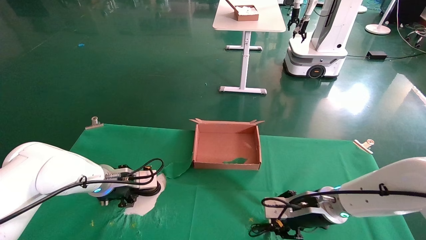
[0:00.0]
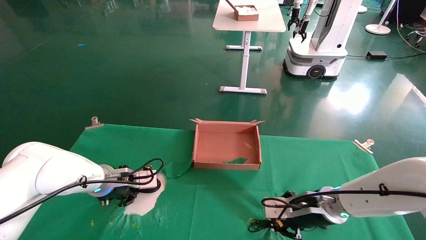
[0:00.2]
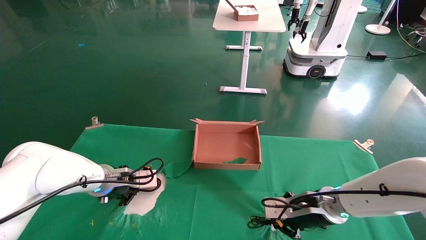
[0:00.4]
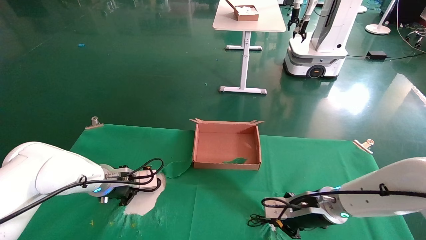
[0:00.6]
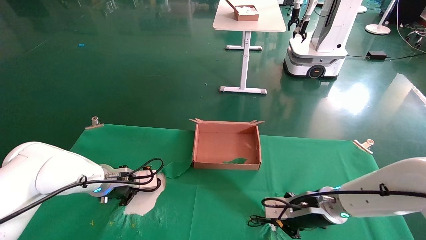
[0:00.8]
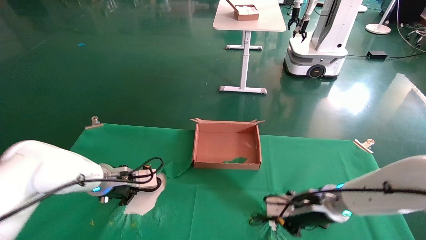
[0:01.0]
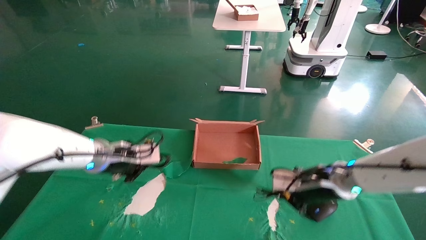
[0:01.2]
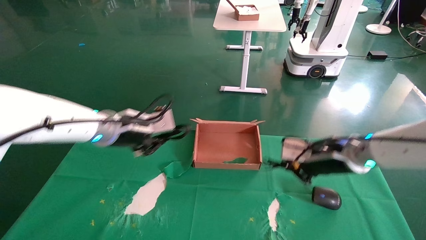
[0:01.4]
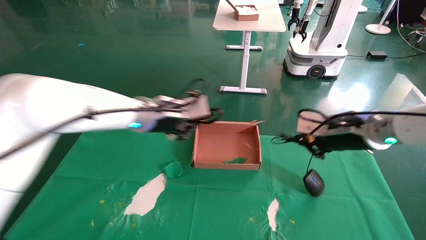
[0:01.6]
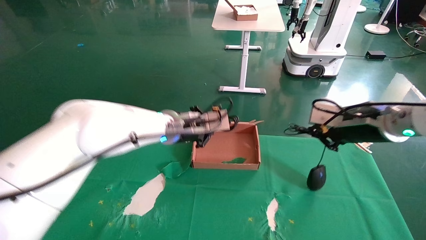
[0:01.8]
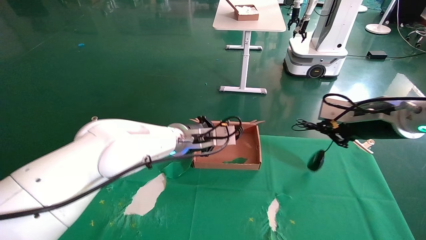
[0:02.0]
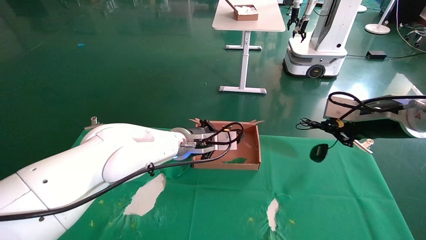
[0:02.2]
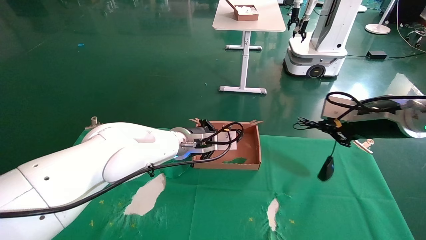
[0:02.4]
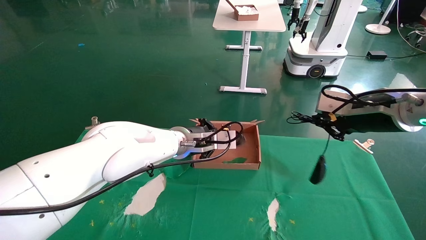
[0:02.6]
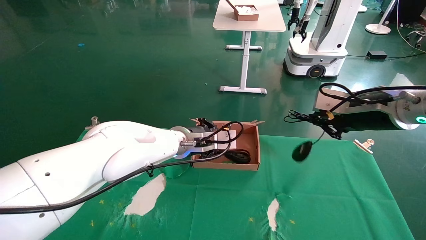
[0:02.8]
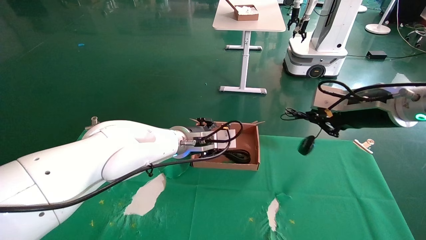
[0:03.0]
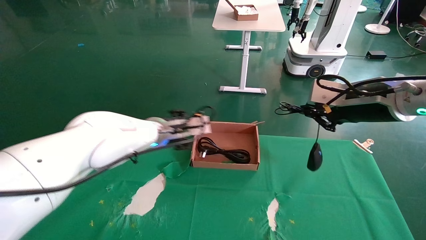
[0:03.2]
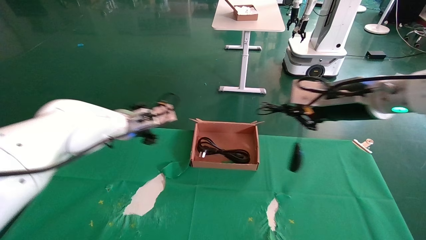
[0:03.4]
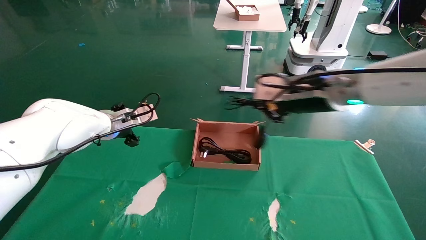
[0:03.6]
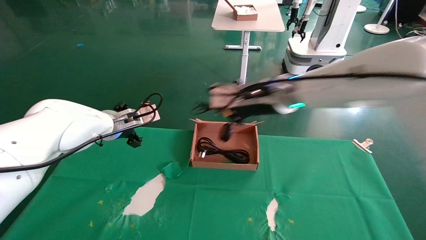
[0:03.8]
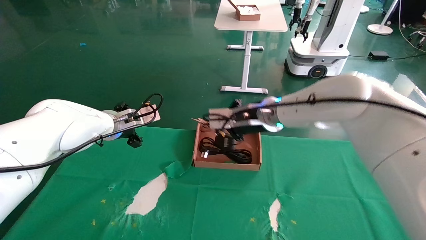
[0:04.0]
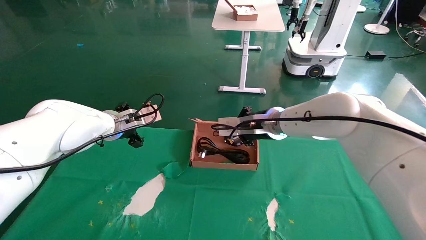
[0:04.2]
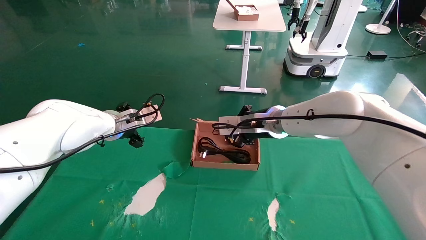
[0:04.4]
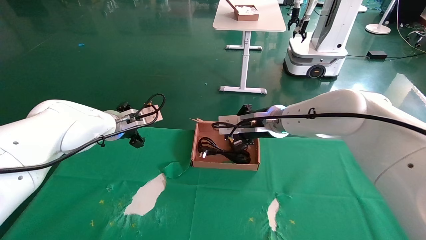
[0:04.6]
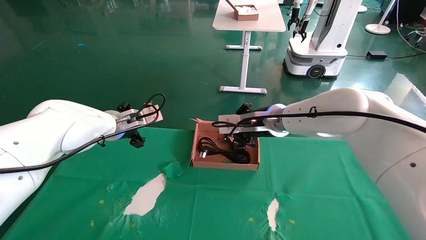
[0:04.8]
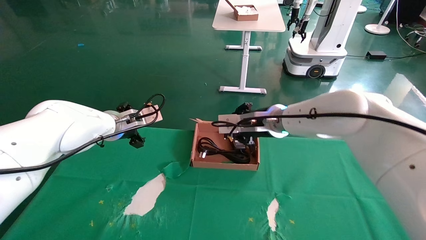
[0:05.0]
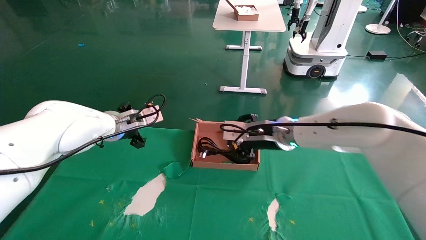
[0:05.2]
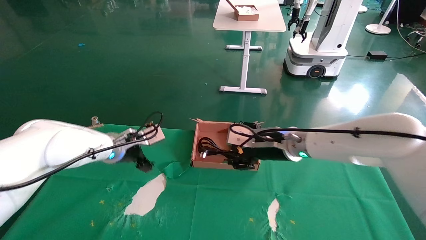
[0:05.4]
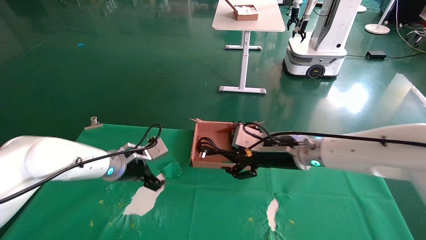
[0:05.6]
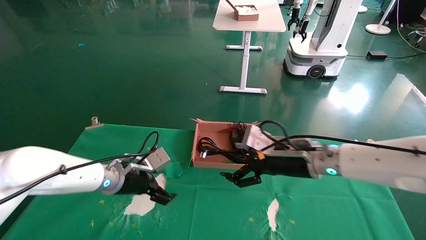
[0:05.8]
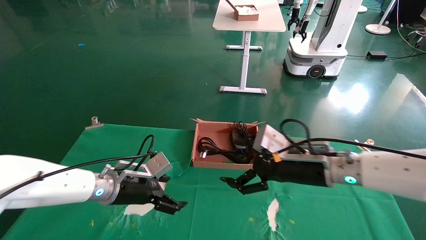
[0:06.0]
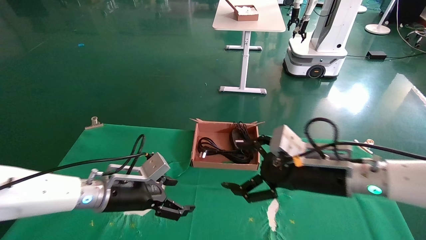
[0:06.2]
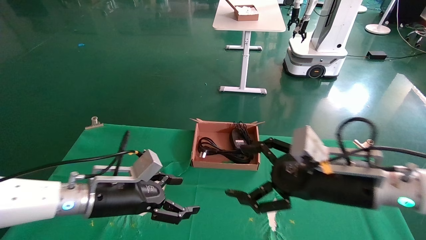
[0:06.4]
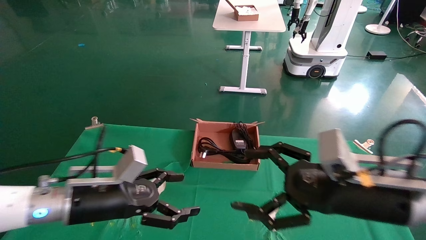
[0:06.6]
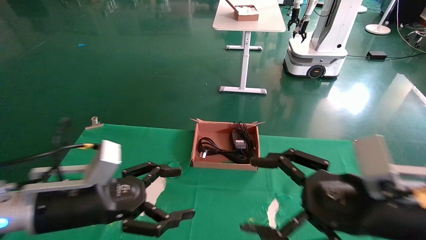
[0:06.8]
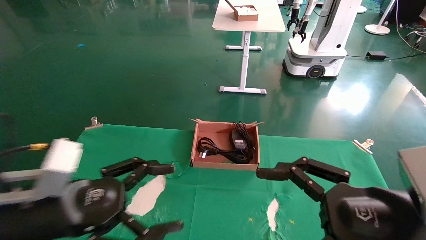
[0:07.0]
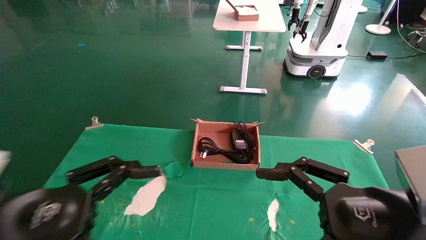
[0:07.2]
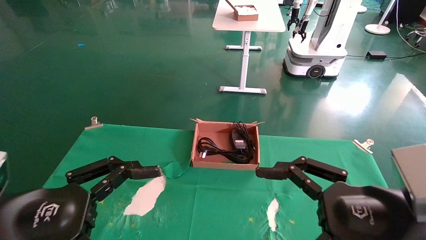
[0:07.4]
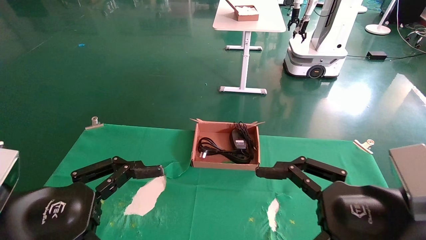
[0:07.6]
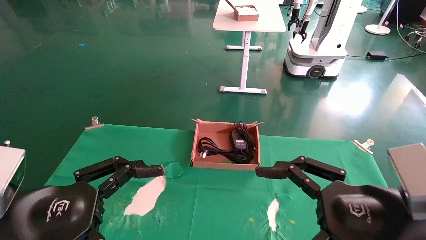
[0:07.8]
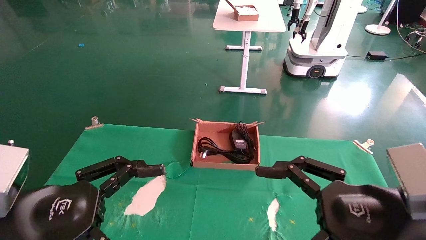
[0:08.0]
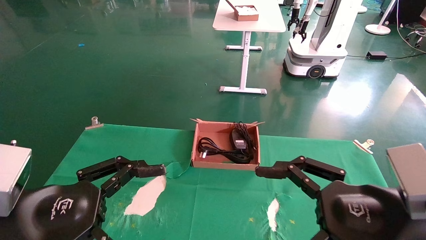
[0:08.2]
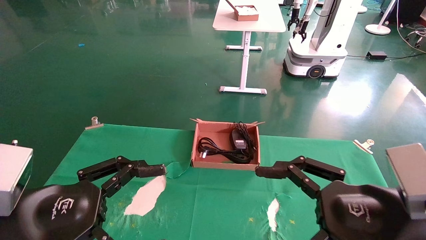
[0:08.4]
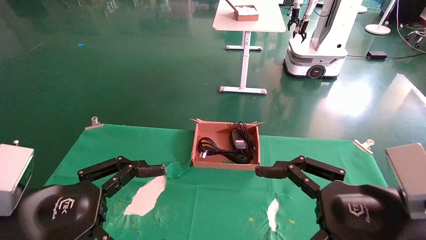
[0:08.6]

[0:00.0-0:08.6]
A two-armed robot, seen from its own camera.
Step, 0:00.2 to 0:06.0: Place the mouse and power cord into the box.
0:00.0 to 0:01.4: The right gripper goes some 10 cm upward, and closes up, while the left gripper heads upward and to the right, covering about 15 cm, and closes.
0:01.4 to 0:02.8: The right gripper shifts about 10 cm upward. The left gripper travels to the right by roughly 10 cm.
0:02.8 to 0:04.4: The left gripper goes roughly 15 cm to the left, and opens its fingers; the right gripper travels to the left and forward by some 20 cm.
0:04.4 to 0:05.8: The left gripper goes some 15 cm downward and backward; the right gripper is displaced backward, to the right and downward by roughly 10 cm, and opens up.
0:05.8 to 0:07.2: Both grippers move backward, roughly 20 cm.
0:07.2 to 0:08.6: Both grippers stay put.

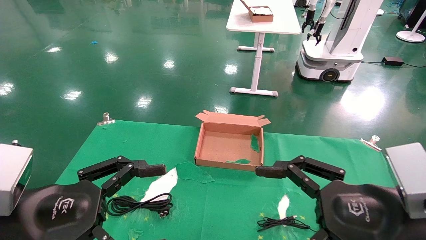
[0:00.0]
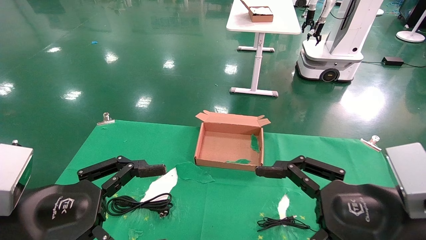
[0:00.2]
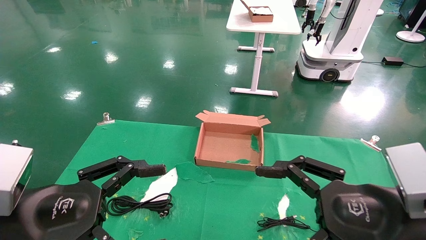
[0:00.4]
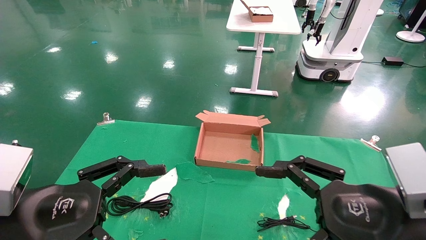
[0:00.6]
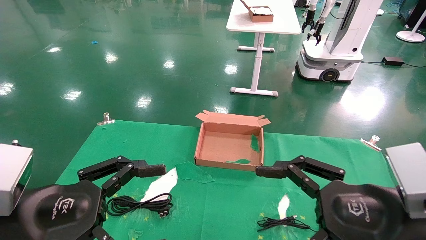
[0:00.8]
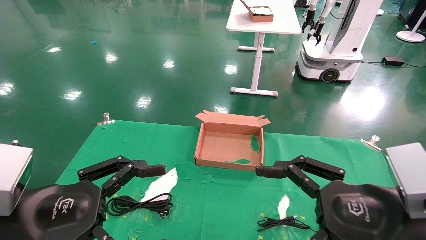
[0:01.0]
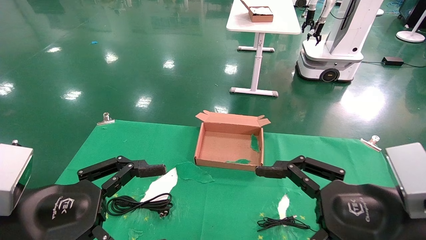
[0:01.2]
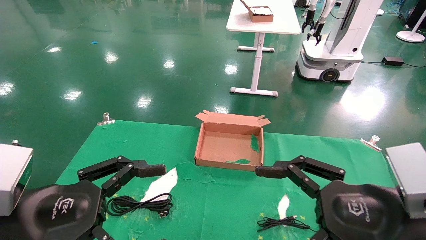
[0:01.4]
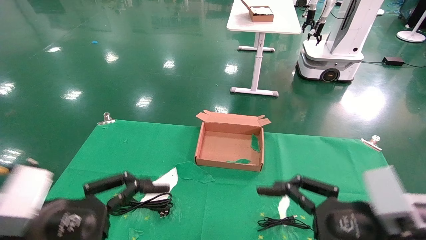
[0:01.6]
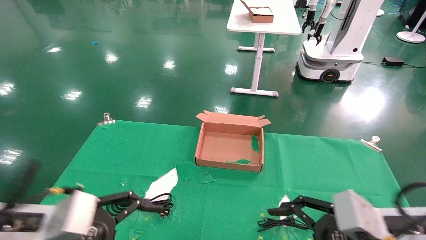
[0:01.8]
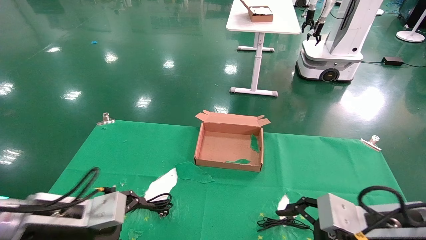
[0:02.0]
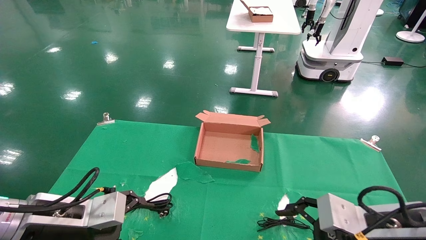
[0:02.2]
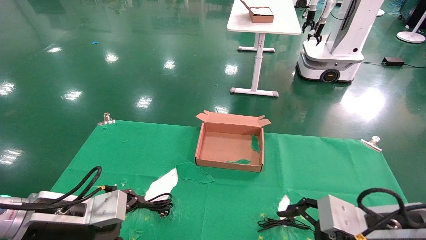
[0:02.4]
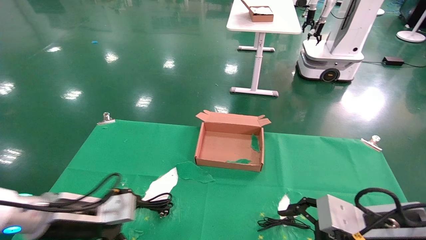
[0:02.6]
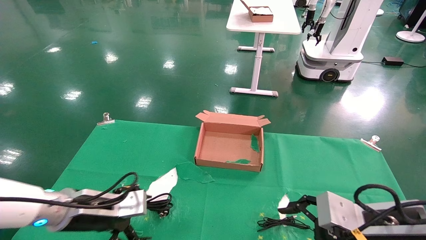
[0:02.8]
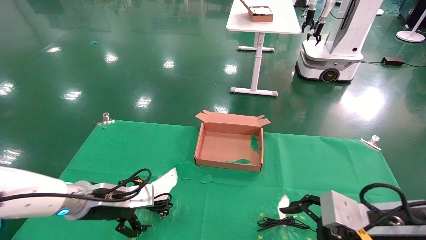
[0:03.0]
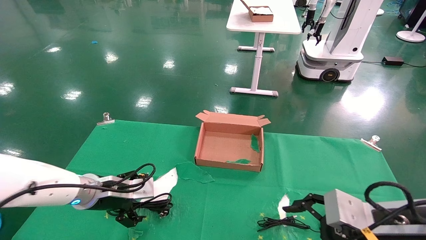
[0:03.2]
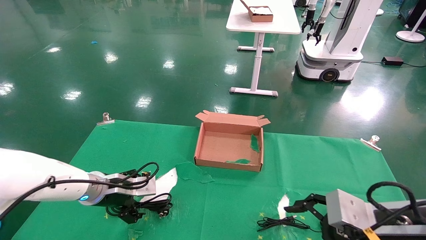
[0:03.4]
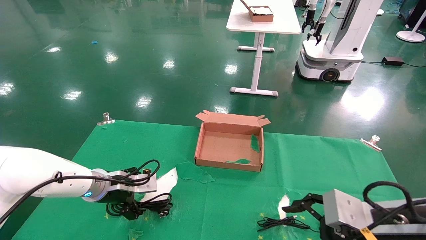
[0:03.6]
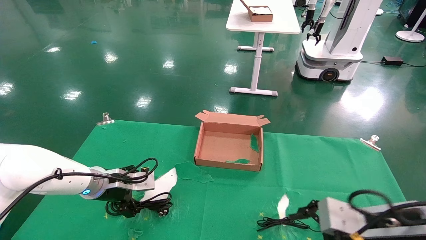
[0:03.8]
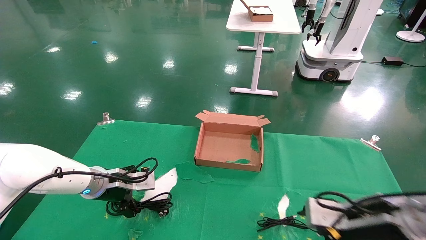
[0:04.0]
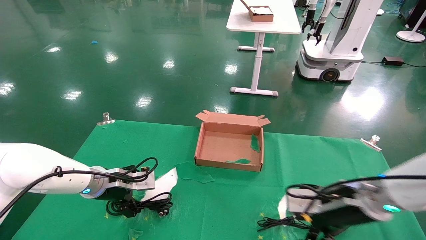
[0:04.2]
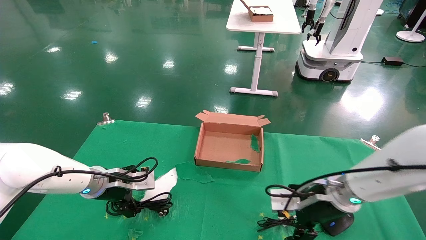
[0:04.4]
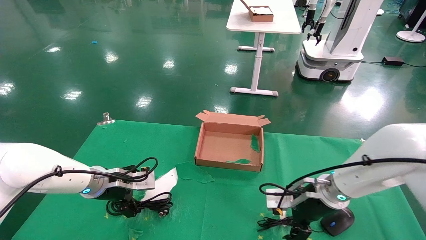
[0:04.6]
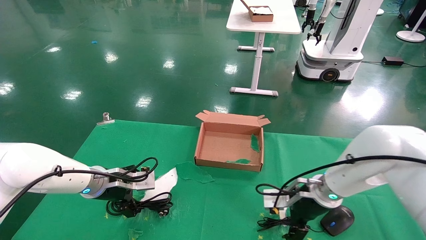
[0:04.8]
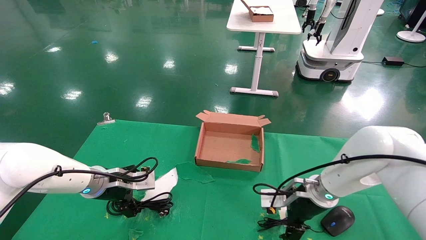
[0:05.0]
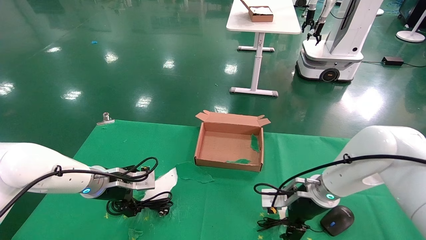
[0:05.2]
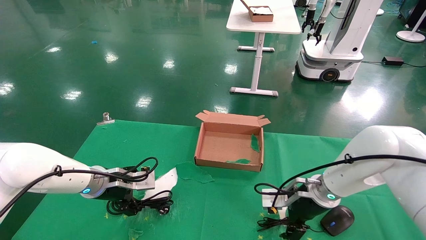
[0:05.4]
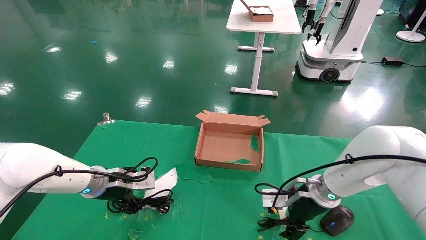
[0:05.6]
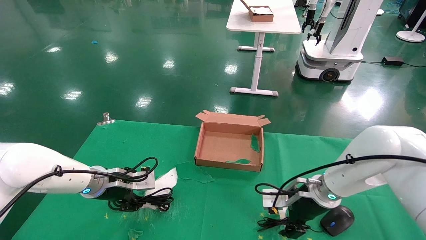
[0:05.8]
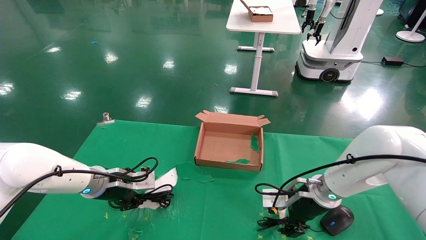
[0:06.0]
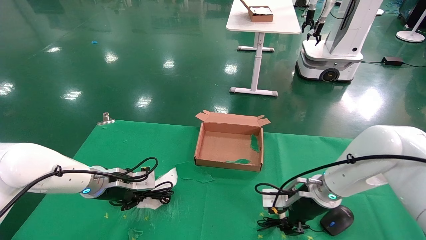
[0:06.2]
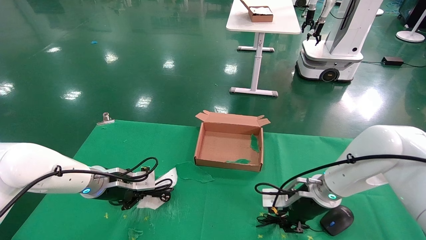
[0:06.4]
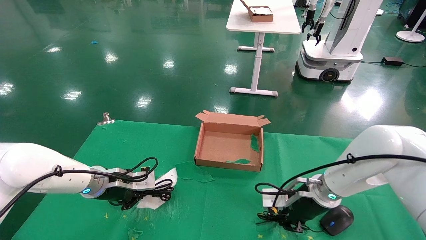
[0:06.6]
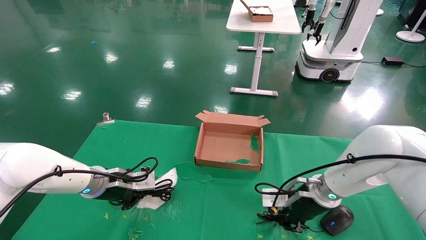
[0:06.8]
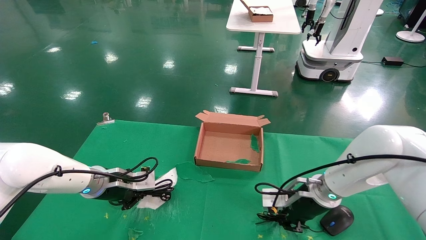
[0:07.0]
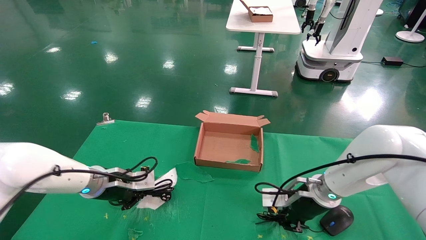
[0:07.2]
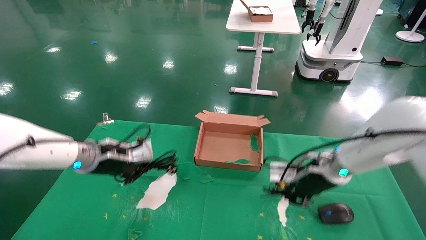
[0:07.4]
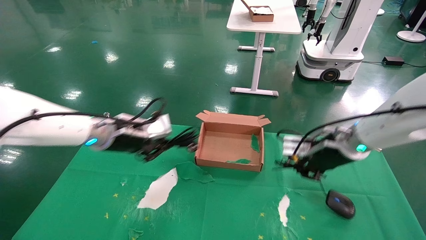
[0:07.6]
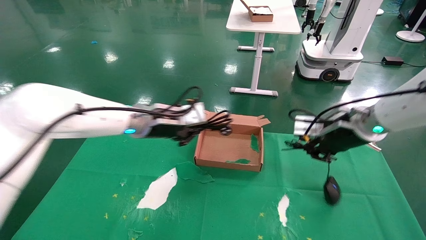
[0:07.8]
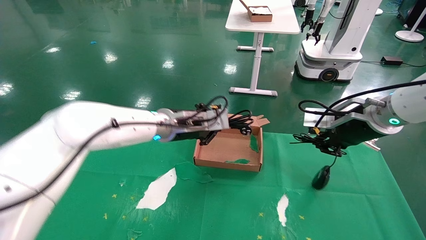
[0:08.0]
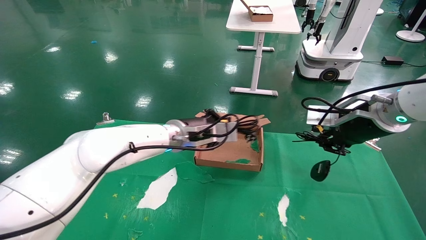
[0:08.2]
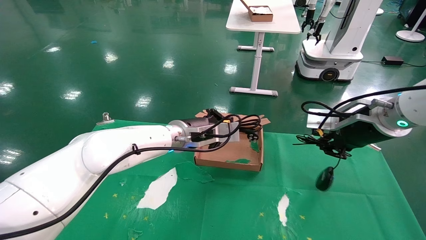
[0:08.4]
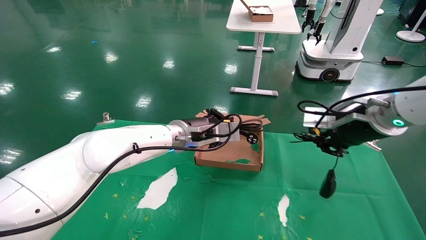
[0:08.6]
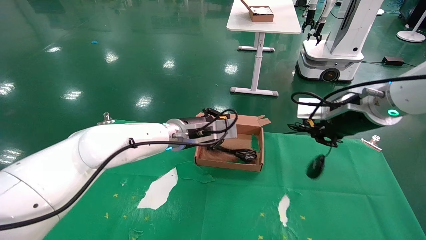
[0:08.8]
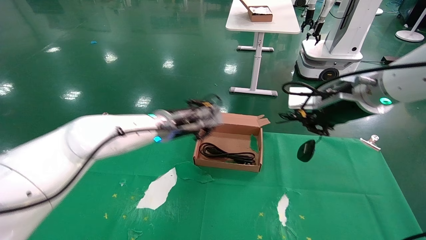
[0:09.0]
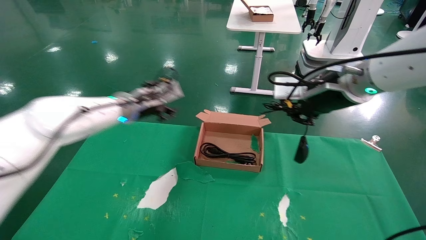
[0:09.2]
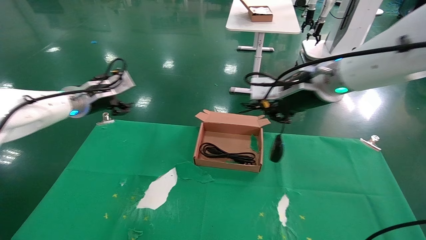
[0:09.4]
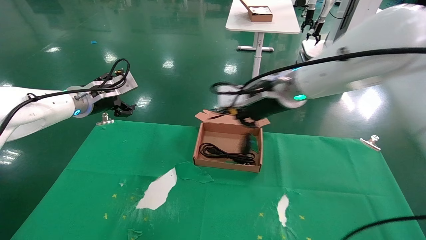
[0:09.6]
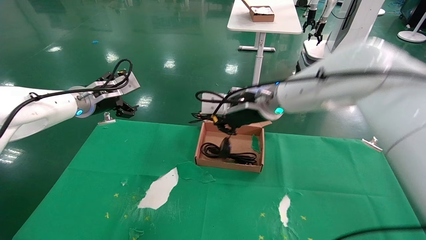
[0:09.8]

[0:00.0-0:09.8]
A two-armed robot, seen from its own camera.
Step, 0:01.4 to 0:07.8: Grab and lift both the mouse and power cord from the accessory packaging area at the same time.
0:00.0 to 0:01.4: Neither gripper changes place.
0:01.4 to 0:02.8: The right gripper moves approximately 5 cm. Meanwhile the left gripper goes roughly 15 cm forward and downward.
0:02.8 to 0:04.2: The grippers both shift forward by roughly 10 cm.
0:04.2 to 0:05.6: The right gripper moves forward, roughly 10 cm.
0:05.6 to 0:07.0: The right gripper closes. Meanwhile the left gripper closes.
0:07.0 to 0:08.4: The right gripper is displaced upward by approximately 15 cm. Meanwhile the left gripper travels to the right and upward by roughly 20 cm.
0:08.4 to 0:09.8: Both grippers travel together to the left, approximately 20 cm. The left gripper opens up.
